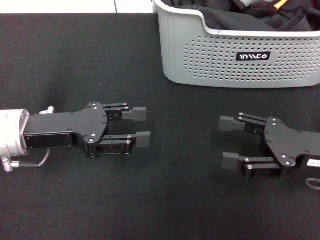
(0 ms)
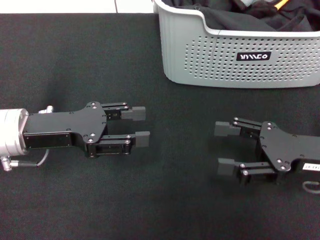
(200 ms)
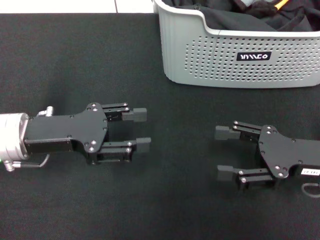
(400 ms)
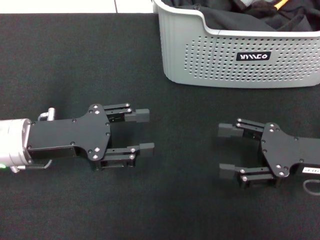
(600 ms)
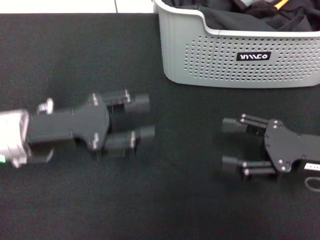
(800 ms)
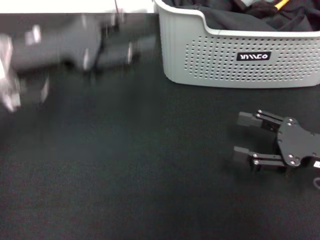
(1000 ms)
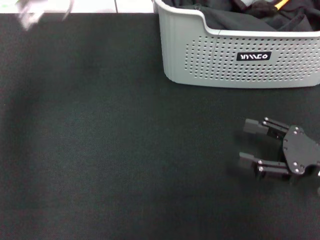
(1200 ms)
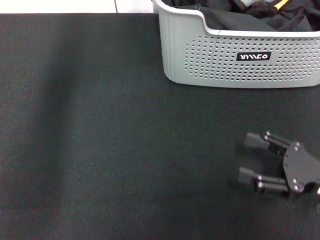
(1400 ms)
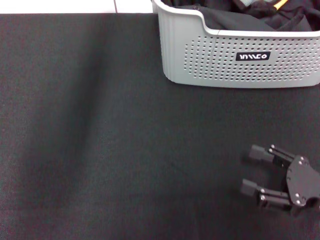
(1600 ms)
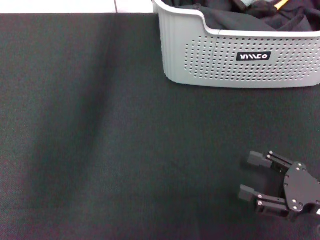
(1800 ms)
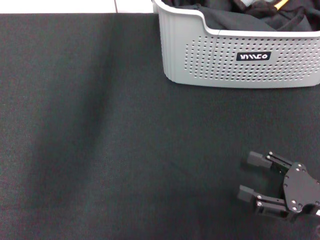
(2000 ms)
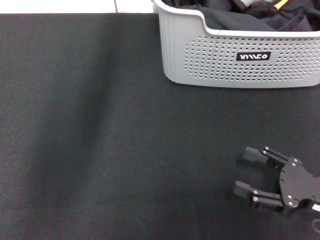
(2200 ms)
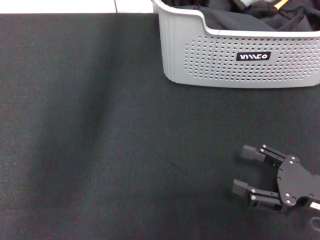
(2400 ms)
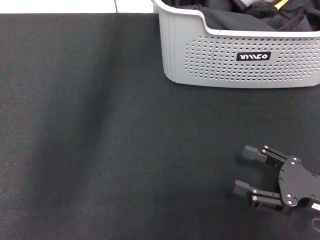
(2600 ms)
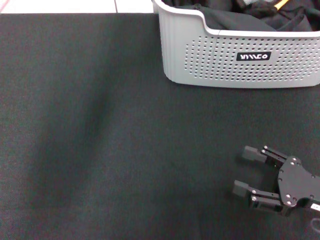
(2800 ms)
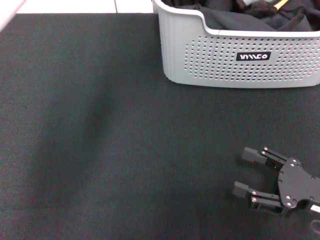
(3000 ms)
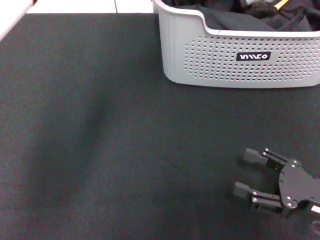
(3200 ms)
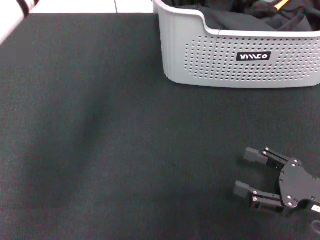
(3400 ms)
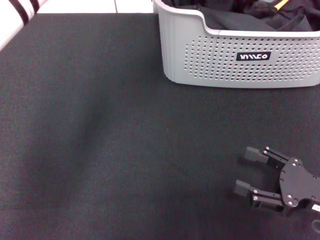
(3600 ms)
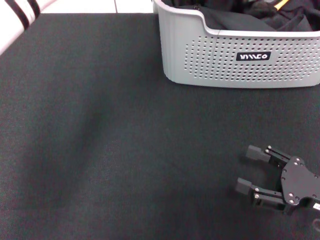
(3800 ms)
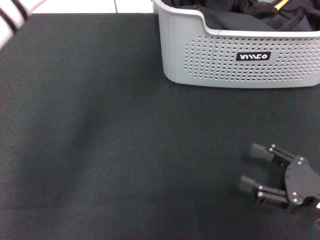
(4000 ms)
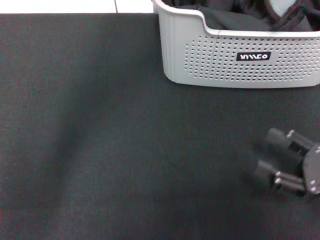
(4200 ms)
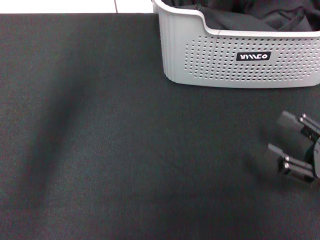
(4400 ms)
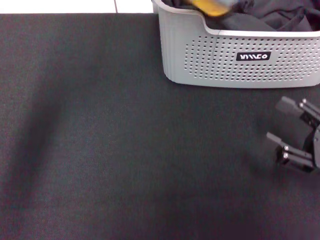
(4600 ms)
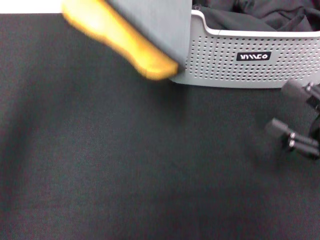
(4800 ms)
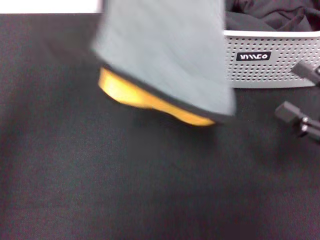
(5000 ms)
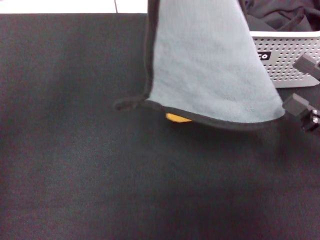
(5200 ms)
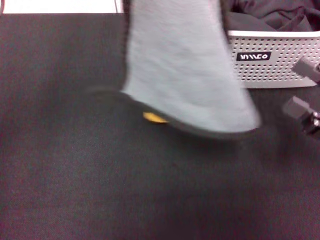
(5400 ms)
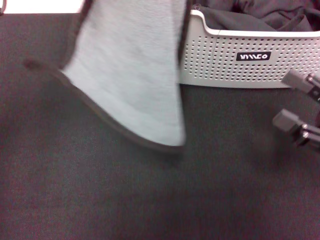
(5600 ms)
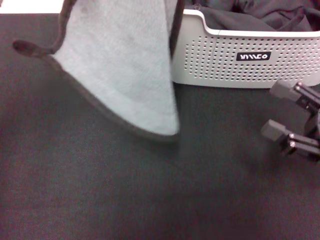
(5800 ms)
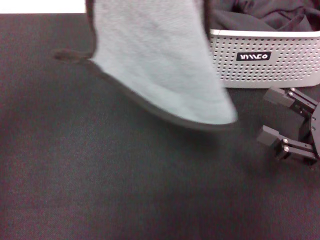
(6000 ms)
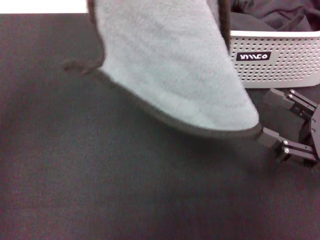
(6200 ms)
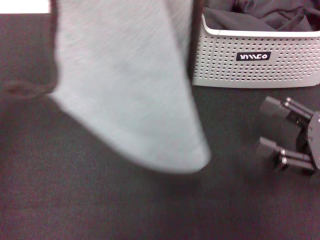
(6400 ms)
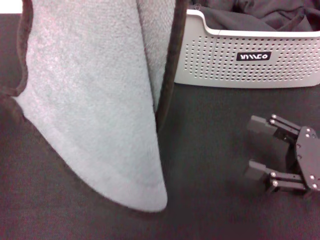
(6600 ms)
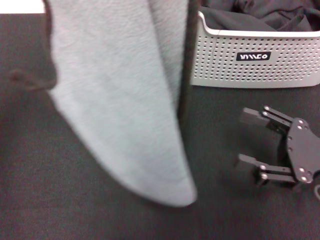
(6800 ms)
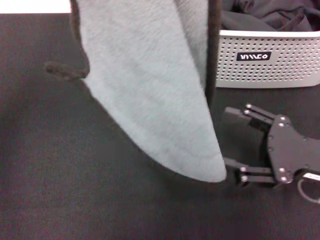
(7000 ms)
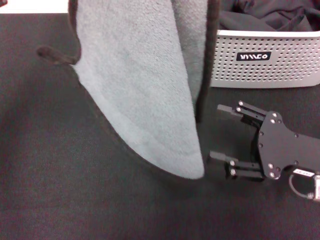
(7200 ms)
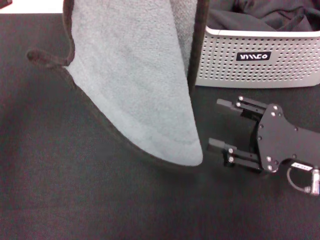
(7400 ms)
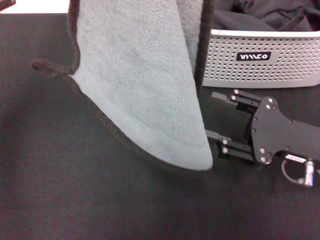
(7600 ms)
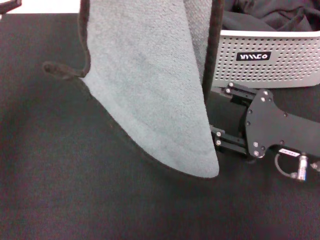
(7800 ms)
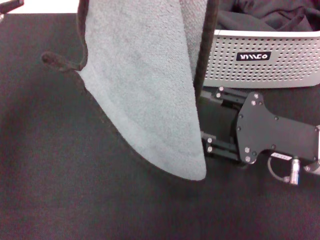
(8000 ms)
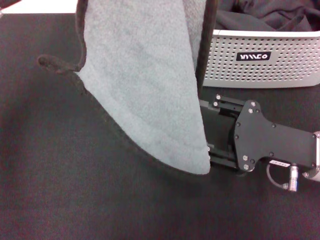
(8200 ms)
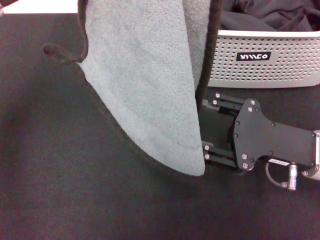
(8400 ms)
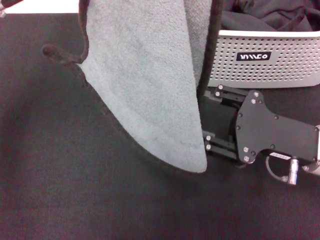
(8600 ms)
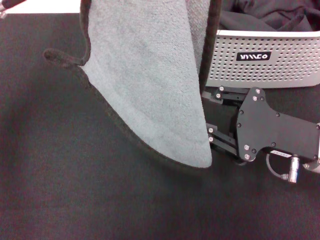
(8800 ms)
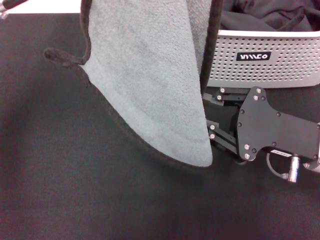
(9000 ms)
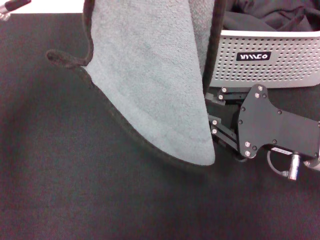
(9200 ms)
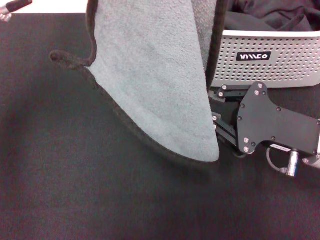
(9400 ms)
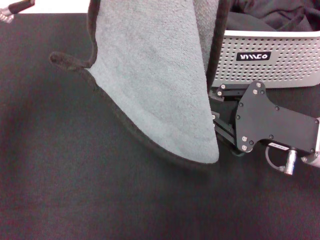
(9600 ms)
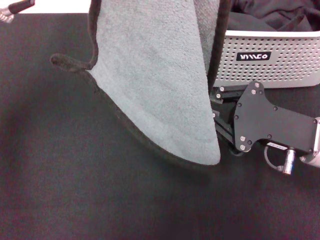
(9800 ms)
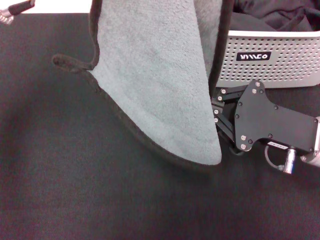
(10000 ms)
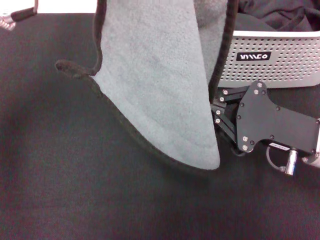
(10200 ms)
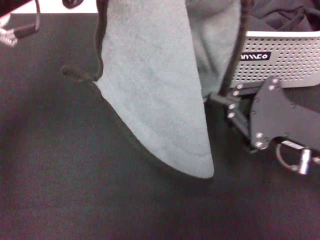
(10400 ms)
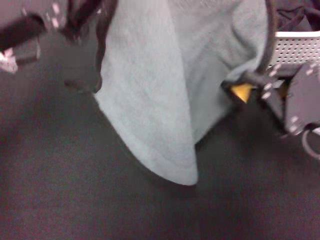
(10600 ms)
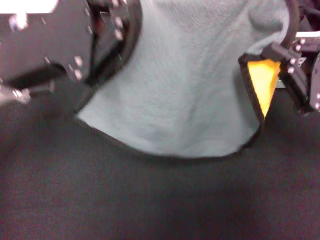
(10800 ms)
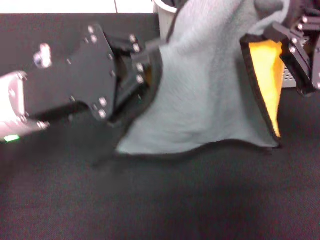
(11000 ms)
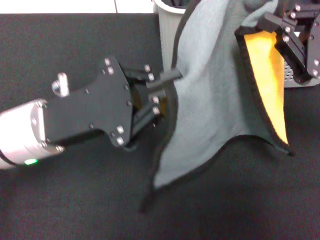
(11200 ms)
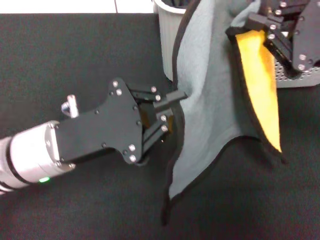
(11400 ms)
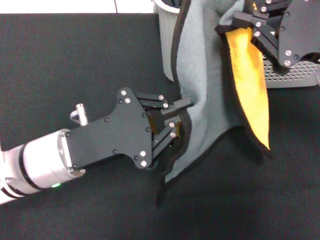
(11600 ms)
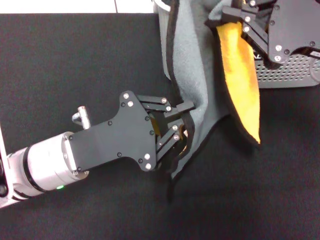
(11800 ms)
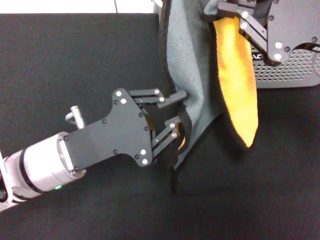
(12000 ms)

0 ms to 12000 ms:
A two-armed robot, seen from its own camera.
Task of the whole recording: pick up the towel from the storage box and lay it flat on the black tablecloth.
Step, 0 ms to 3000 ms: Pick up a towel with the left gripper.
Step, 3400 ms to 10000 ms: Spread the towel flat with the left gripper.
0 ms to 1600 ms: The right gripper goes roughly 10 cm backward and downward. Meanwhile the left gripper goes approximately 30 cm to the right, upward and forward.
1600 ms to 3000 ms: The left gripper shifts by approximately 5 cm.
3000 ms to 4400 ms: The left gripper is displaced upward, backward and to the left by about 20 cm, and closes up.
4400 ms to 6000 ms: The left gripper goes roughly 15 cm to the left, backward and downward.
6000 ms to 7600 ms: The right gripper shifts roughly 5 cm to the left.
7600 ms to 9000 ms: The right gripper closes.
9000 ms to 10400 ms: The right gripper closes its fingers.
10400 ms to 12000 ms: The left gripper goes roughly 20 cm downward and backward. Meanwhile the right gripper travels upward by some 15 cm.

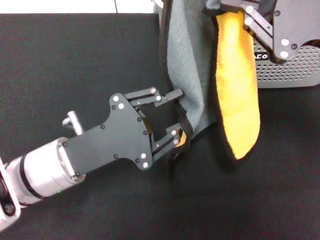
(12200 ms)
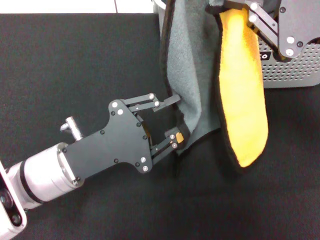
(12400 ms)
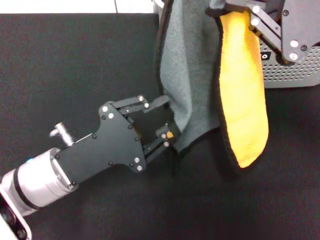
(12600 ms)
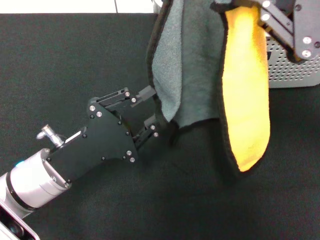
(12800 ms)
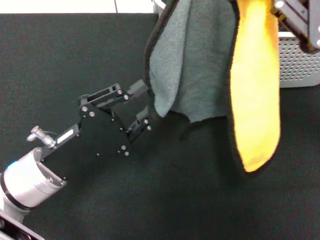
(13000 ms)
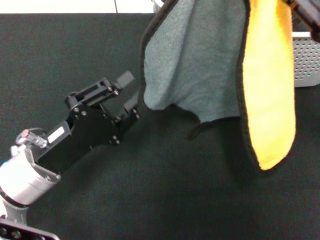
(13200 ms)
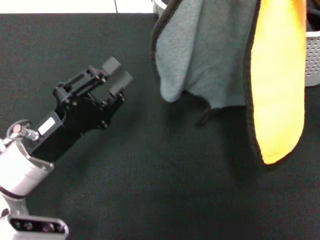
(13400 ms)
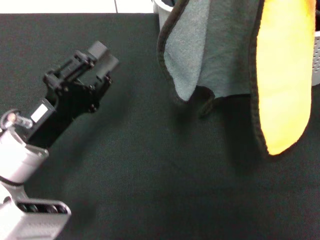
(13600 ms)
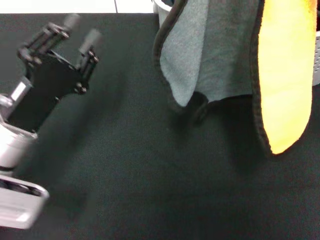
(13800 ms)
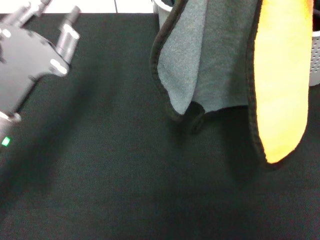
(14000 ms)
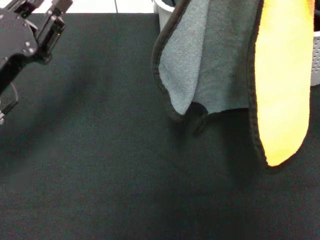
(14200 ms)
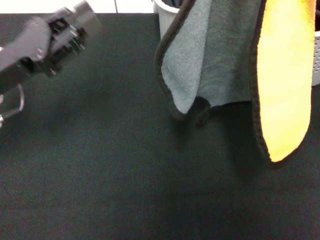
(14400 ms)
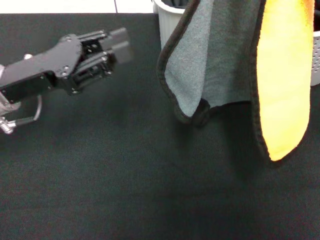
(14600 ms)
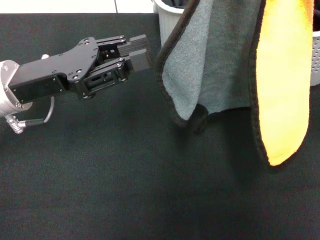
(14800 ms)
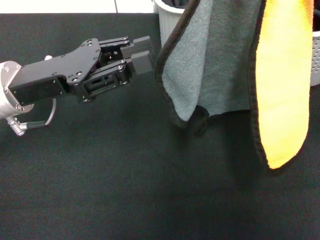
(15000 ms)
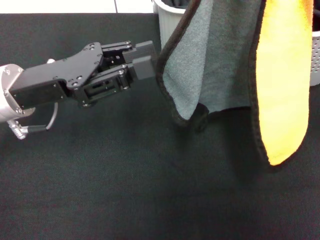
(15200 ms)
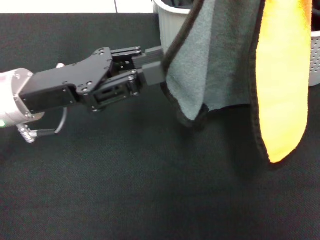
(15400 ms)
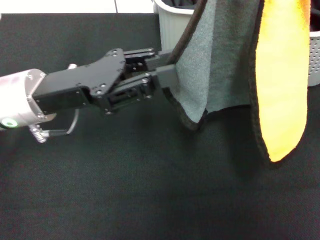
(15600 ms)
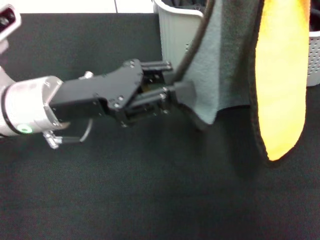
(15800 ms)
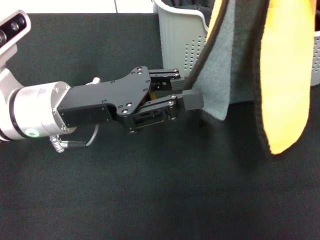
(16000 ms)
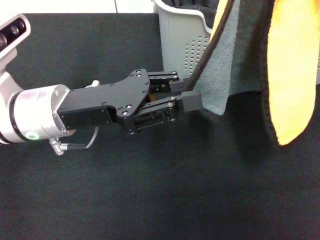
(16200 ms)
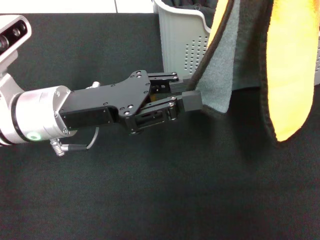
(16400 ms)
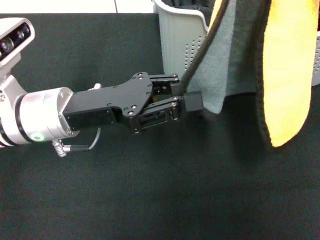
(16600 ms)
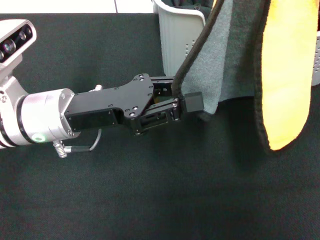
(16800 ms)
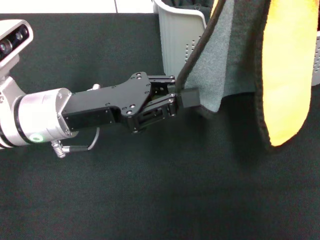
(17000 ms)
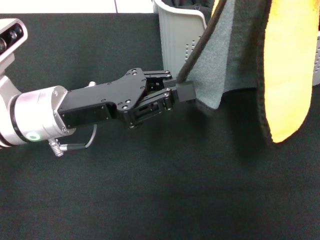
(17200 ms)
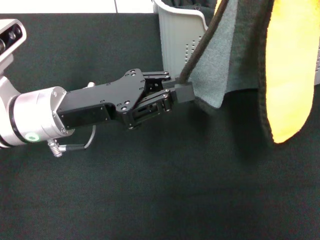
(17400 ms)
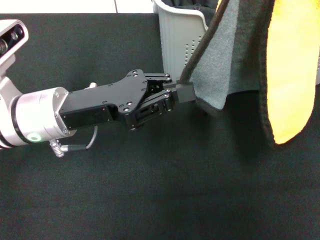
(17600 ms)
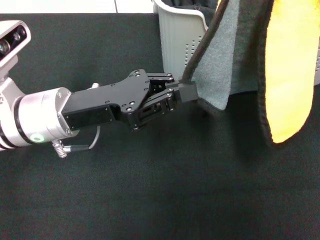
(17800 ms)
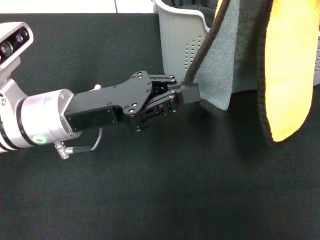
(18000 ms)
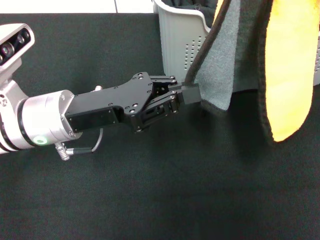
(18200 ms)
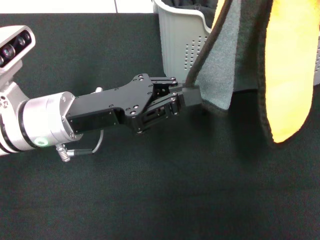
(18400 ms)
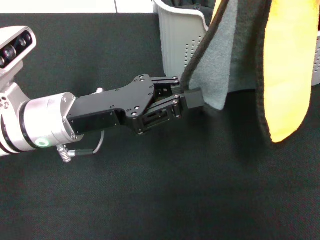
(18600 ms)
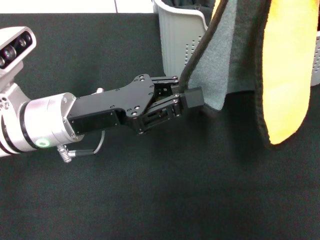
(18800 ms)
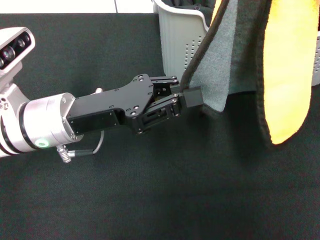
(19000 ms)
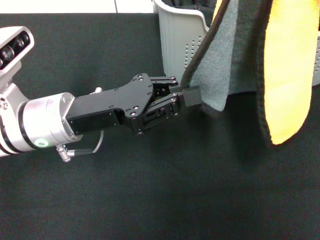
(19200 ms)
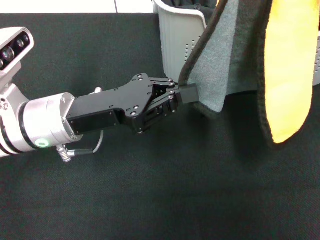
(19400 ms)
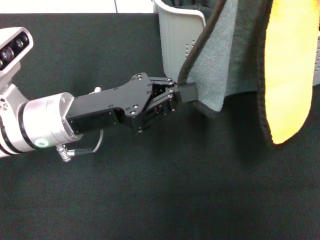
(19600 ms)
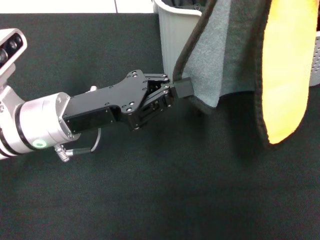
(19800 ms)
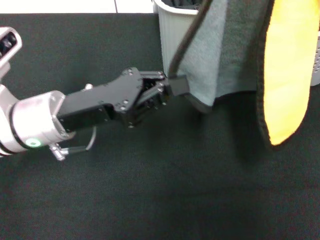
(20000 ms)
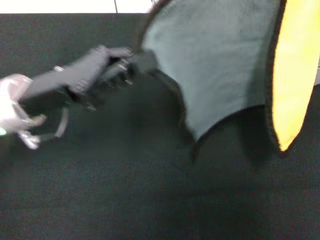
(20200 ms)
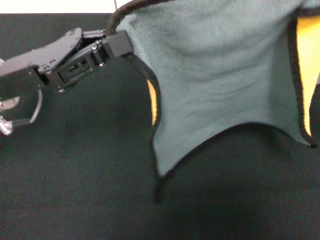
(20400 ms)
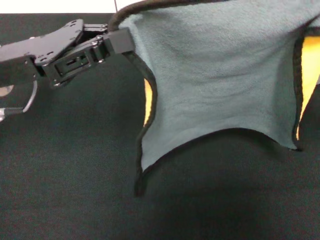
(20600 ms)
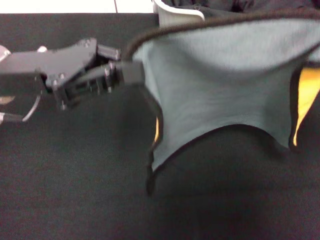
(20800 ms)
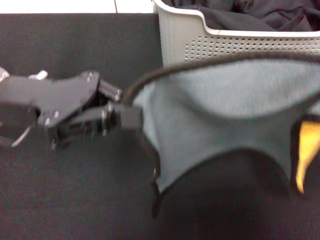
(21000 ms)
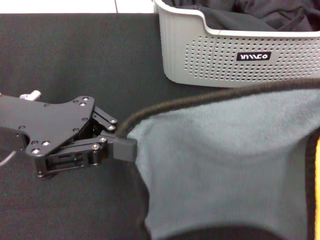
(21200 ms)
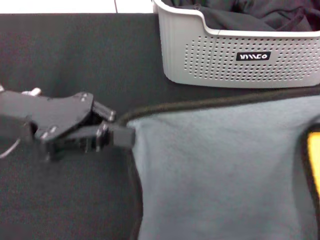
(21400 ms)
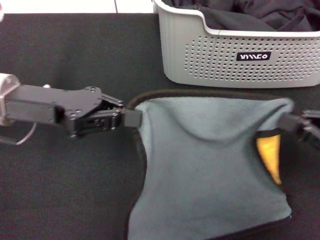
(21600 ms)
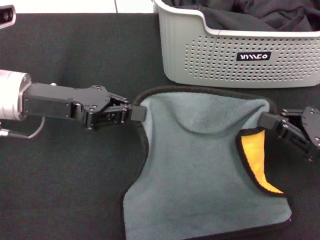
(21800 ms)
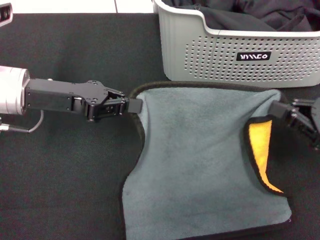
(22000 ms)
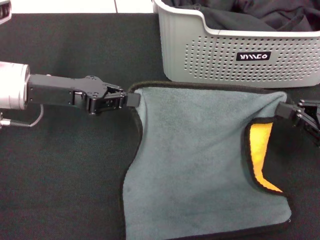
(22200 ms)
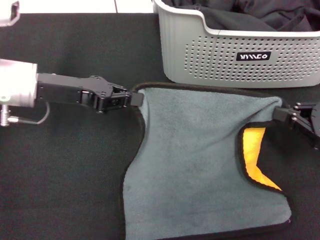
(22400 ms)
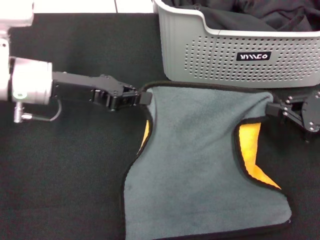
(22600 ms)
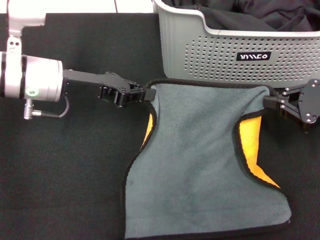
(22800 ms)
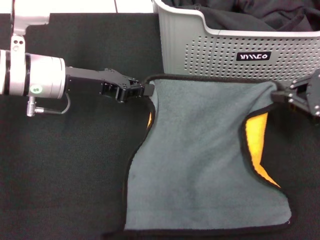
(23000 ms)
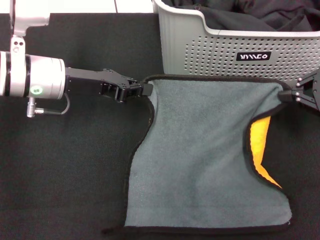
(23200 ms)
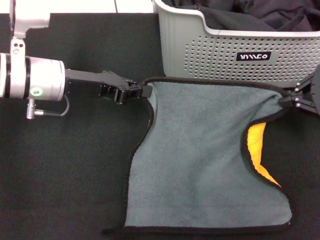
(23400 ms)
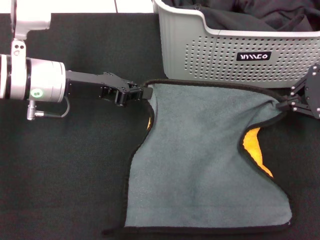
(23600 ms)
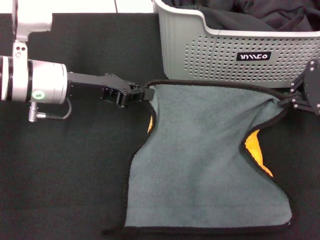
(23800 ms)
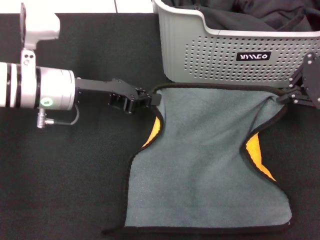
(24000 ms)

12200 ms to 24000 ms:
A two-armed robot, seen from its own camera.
Task of the whole recording: pick up the towel from the storage box and lay it flat on the black tablecloth.
12200 ms to 13600 ms: The right gripper goes some 5 cm upward.
13600 ms to 15200 ms: The left gripper heads upward and forward, covering approximately 10 cm.
15200 ms to 16600 ms: The left gripper ends up approximately 5 cm from where it was.
16600 ms to 19600 ms: Both grippers stay about where they are.
19600 ms to 21000 ms: The right gripper moves downward, backward and to the right, roughly 15 cm. Meanwhile the left gripper travels upward and to the left by approximately 10 cm.
21000 ms to 22600 ms: The right gripper is displaced downward and forward by roughly 15 cm; the left gripper goes approximately 10 cm forward and downward.
22600 ms to 24000 ms: The right gripper goes about 15 cm upward and forward.
